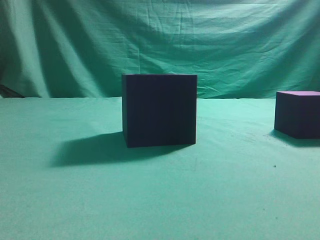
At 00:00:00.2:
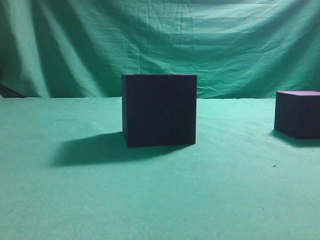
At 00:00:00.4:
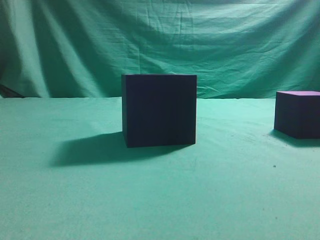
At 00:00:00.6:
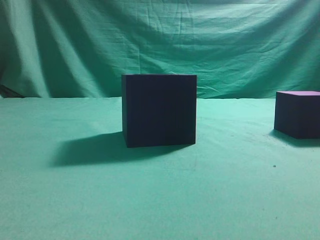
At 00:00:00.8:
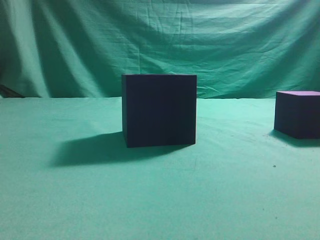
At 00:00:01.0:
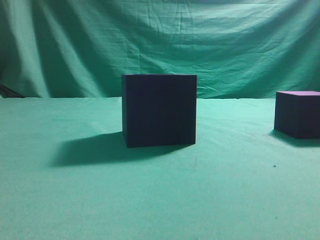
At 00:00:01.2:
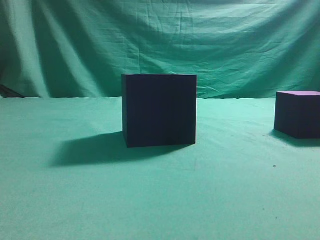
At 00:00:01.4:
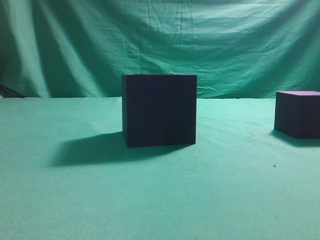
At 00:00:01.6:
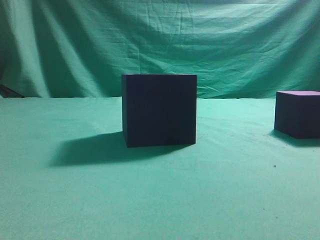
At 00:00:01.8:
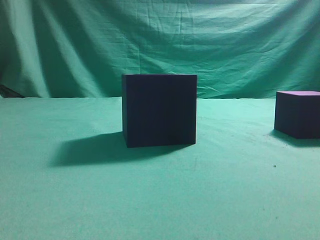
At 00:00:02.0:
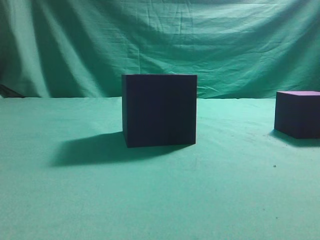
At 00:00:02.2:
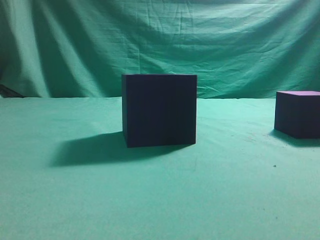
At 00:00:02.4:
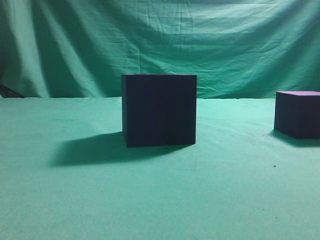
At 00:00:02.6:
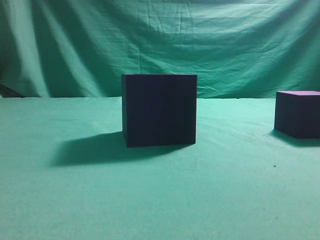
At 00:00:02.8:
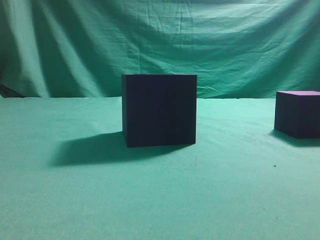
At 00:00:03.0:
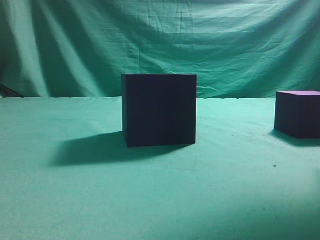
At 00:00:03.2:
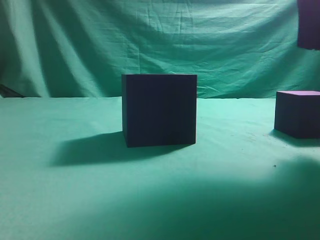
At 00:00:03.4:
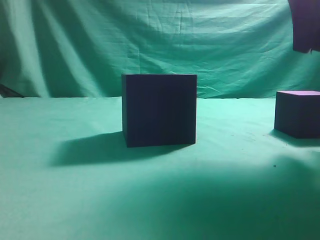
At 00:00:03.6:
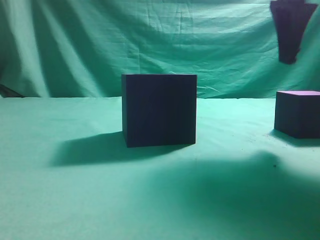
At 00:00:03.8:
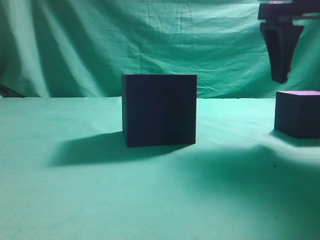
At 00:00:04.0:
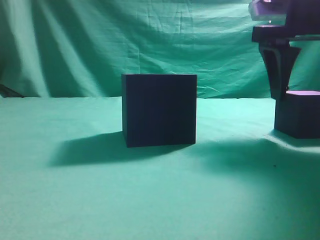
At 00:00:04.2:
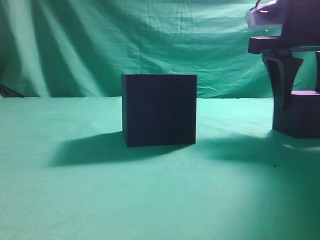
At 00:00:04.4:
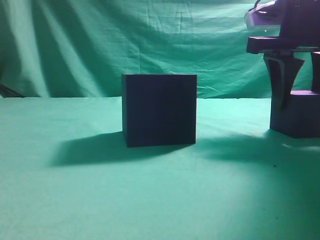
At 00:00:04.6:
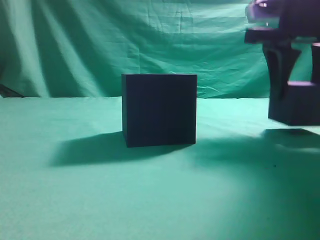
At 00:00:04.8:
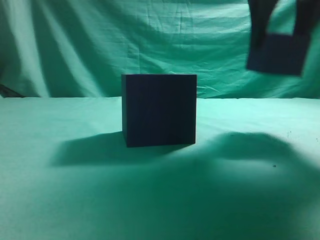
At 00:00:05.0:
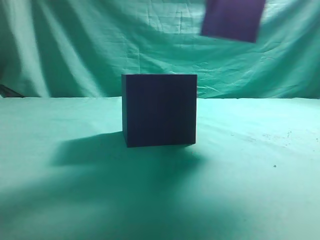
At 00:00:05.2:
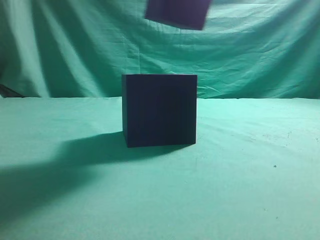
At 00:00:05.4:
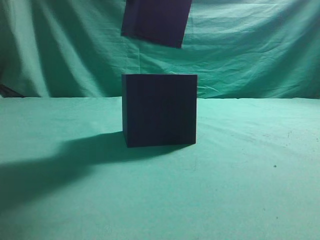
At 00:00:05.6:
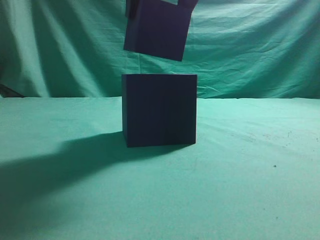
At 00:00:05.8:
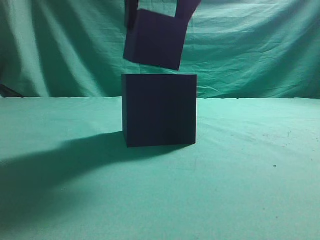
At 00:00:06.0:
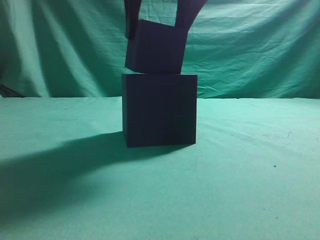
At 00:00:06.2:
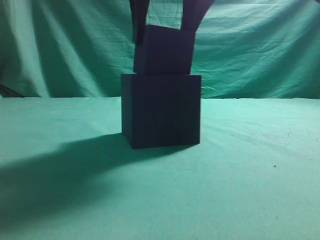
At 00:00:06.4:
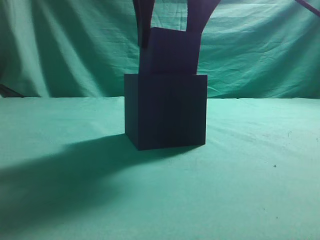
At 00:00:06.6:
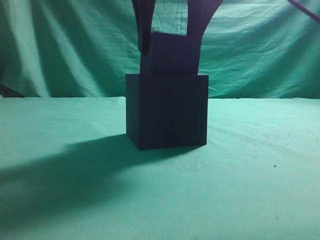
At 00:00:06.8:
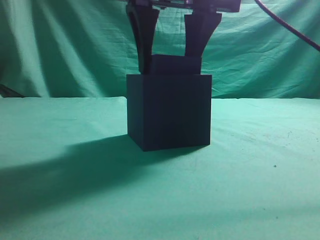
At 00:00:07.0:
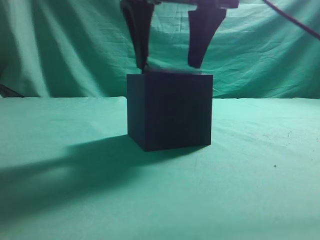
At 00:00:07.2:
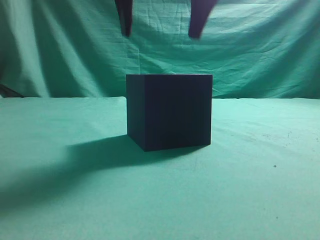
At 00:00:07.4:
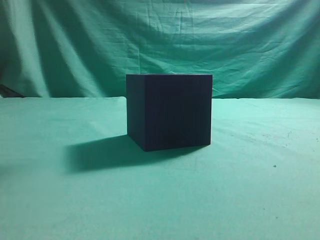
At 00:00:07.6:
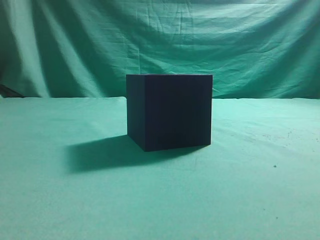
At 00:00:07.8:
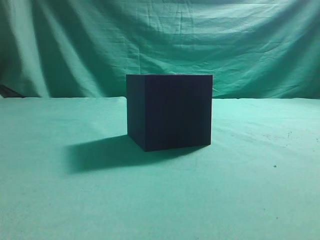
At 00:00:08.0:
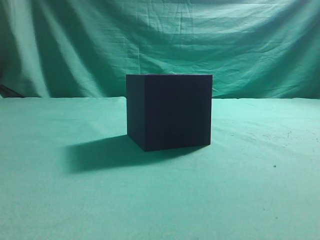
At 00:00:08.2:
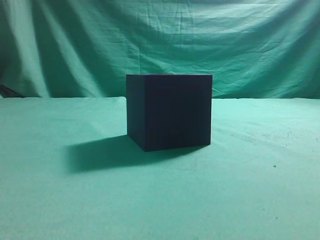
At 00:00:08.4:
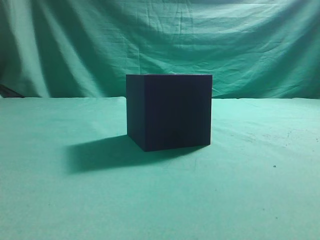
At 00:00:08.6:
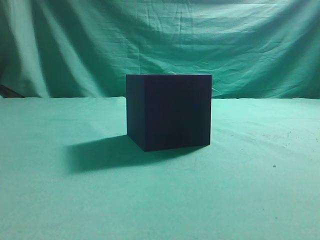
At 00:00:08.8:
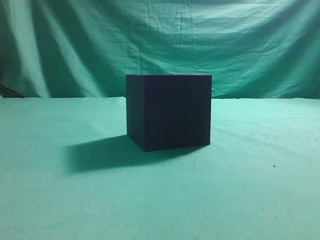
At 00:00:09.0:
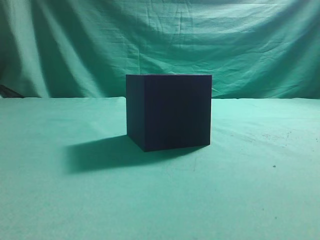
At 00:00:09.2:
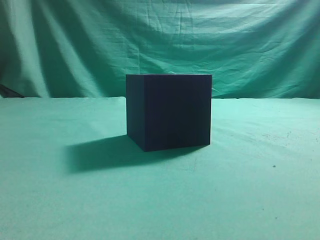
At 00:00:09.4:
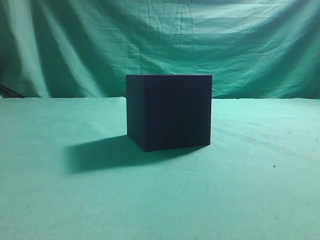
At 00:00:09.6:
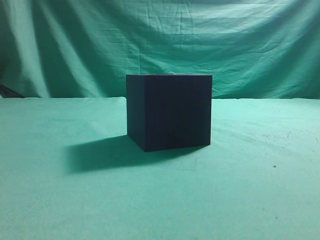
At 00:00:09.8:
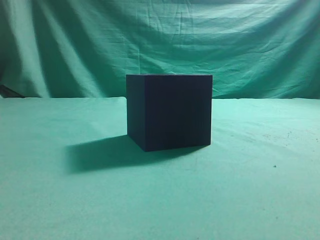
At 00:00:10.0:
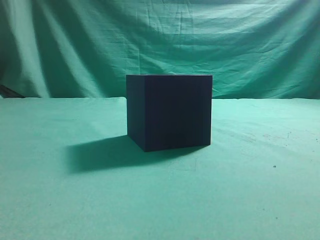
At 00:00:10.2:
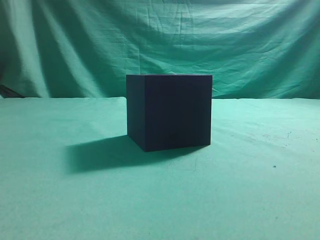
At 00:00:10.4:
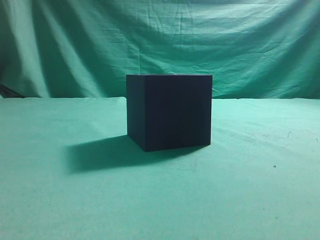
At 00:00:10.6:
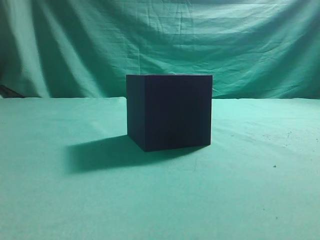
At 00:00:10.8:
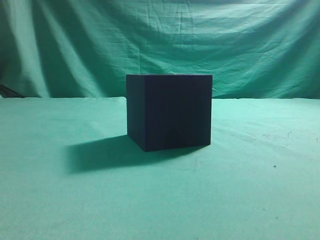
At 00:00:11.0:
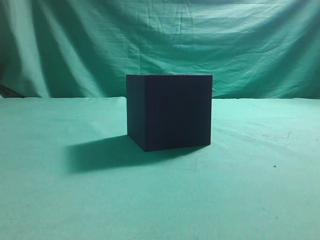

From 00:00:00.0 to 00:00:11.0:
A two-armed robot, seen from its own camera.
Task of the whole recording: pick up the cube block and place it into the cube groove.
Step, from 00:00:00.0 to 00:00:04.6: Grasp the cube.
Step, from 00:00:04.8 to 00:00:07.2: Place cube into the cube-shaped recess.
From 00:00:01.6 to 00:00:03.2: The right gripper travels forward and to the left by approximately 25 cm.
From 00:00:03.2 to 00:00:04.8: The right gripper opens.
From 00:00:04.8 to 00:00:06.2: The right gripper moves to the left, some 15 cm.
From 00:00:06.2 to 00:00:07.8: The right gripper goes approximately 15 cm upward, and closes up.
